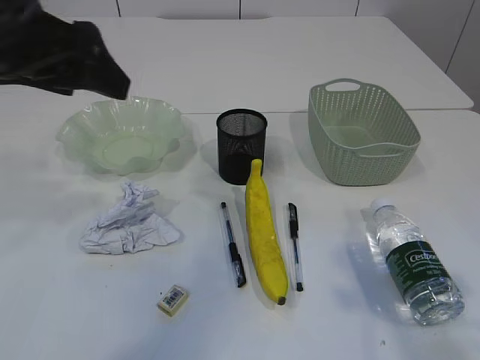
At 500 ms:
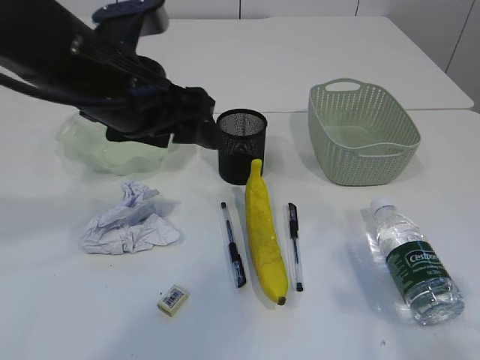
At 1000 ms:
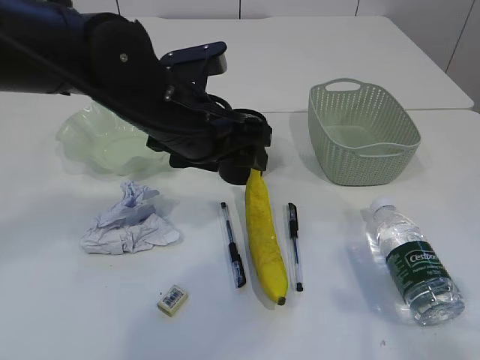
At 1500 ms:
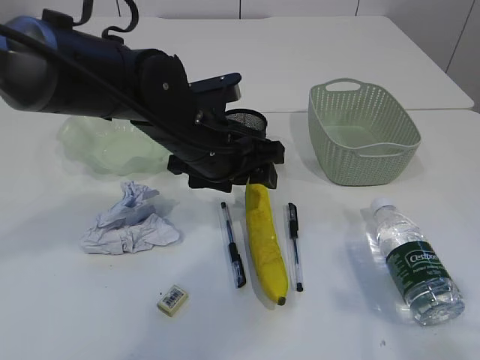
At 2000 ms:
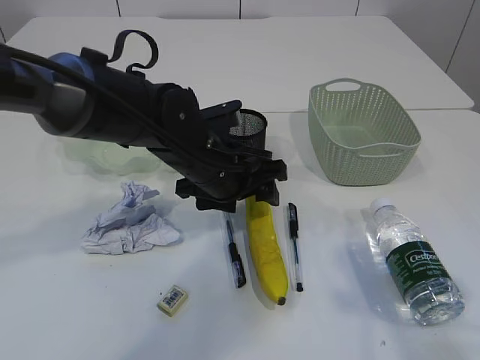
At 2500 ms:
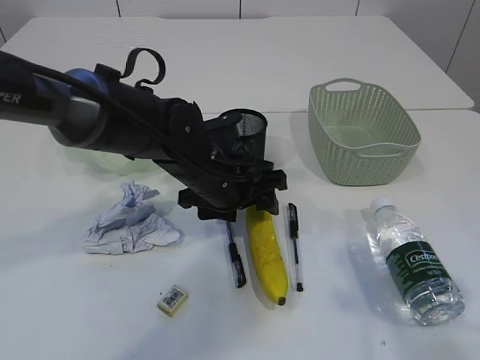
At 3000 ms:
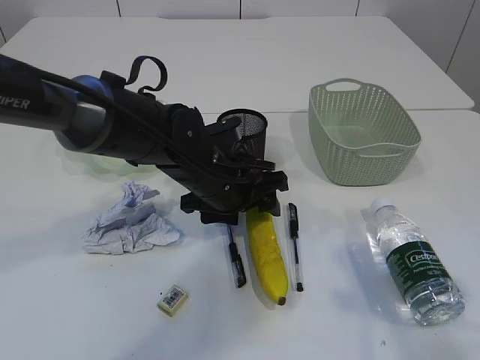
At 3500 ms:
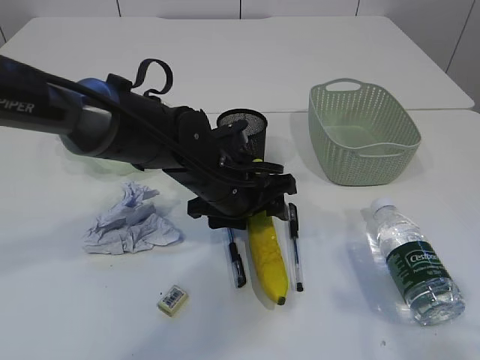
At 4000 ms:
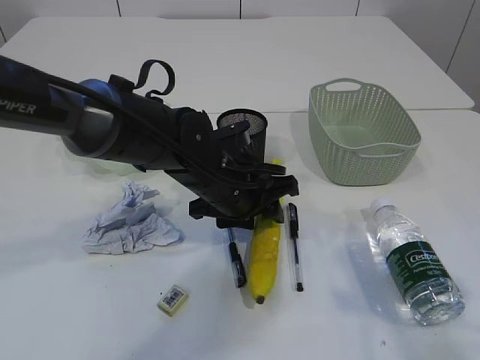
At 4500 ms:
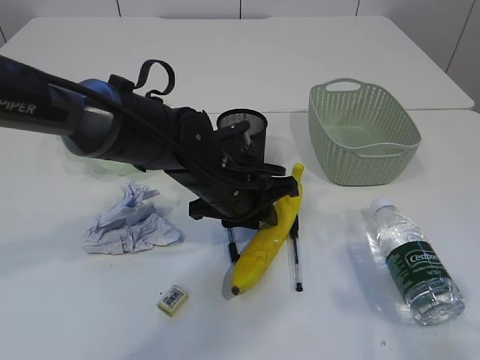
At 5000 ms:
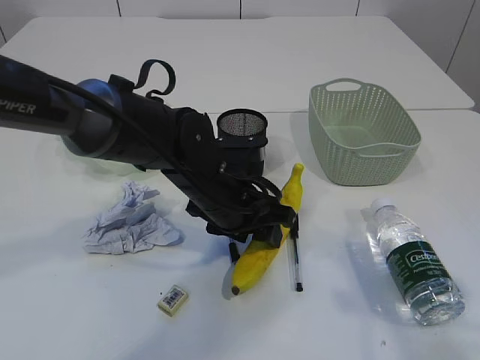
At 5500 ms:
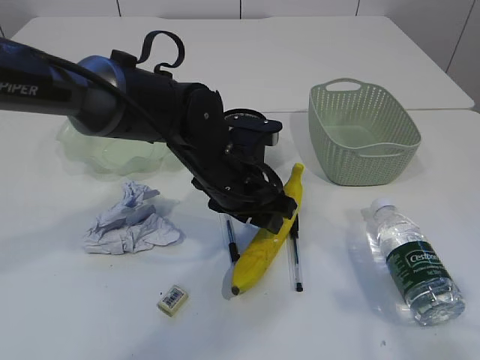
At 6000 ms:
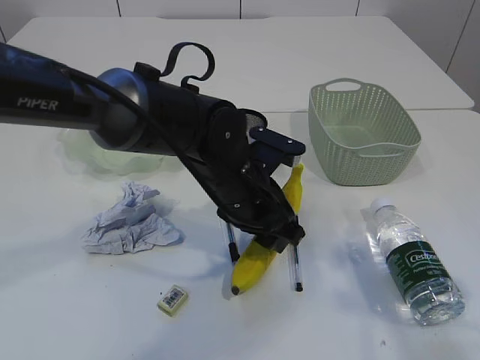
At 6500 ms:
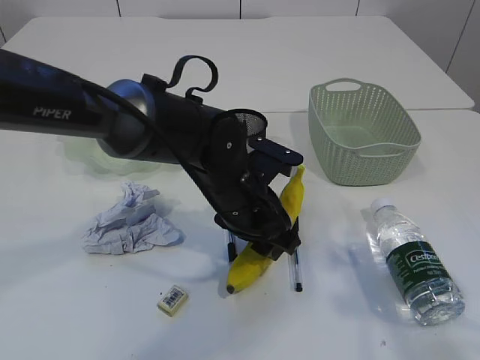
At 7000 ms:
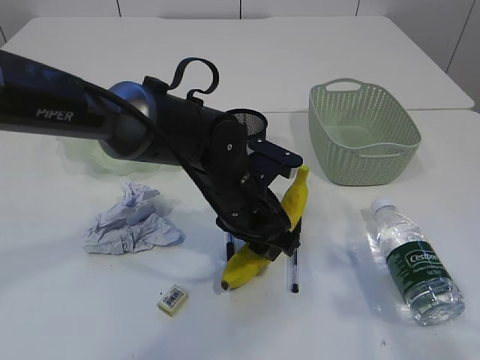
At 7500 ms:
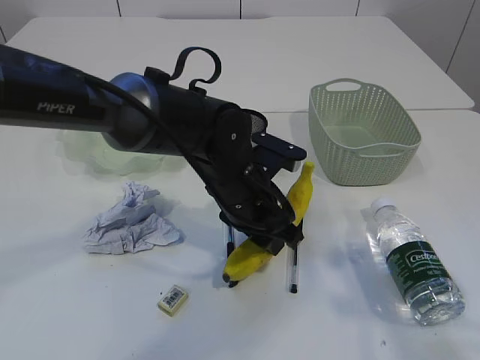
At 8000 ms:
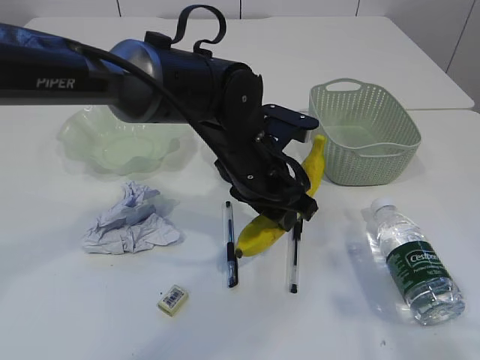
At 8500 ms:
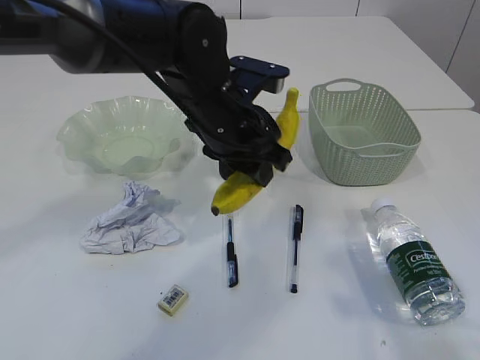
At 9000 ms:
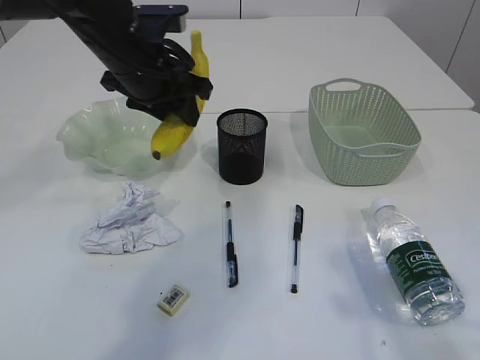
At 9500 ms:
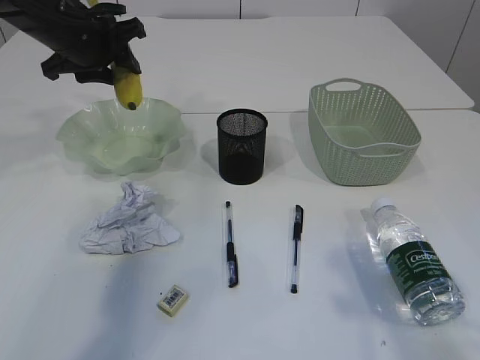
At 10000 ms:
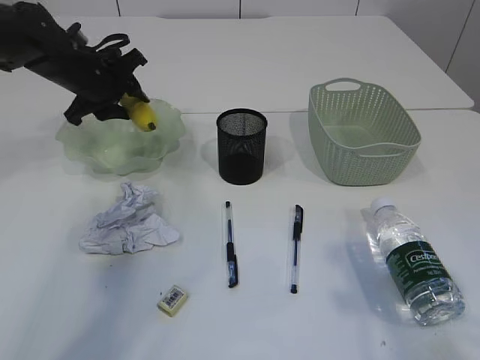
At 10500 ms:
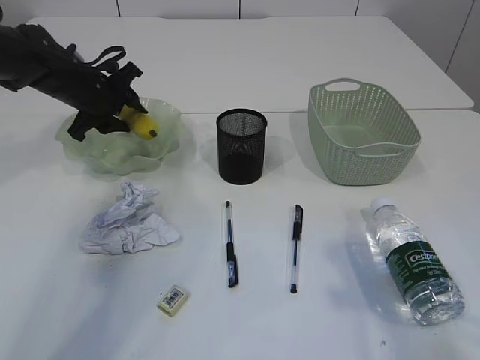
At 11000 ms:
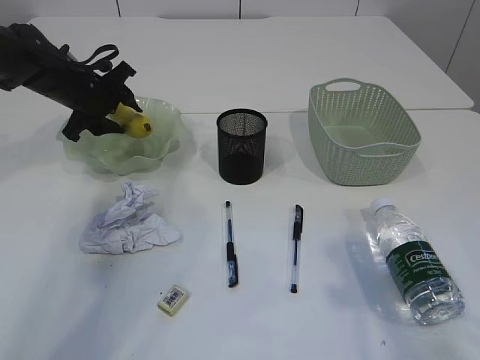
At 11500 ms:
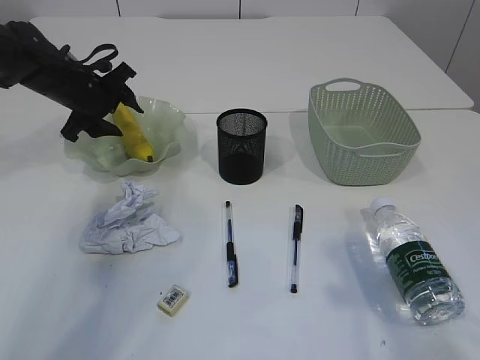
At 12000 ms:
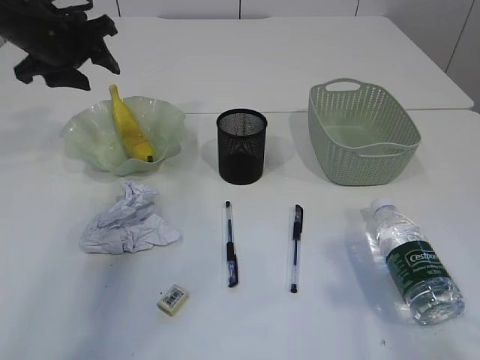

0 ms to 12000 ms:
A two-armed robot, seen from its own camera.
0 ms to 2000 ms: The left gripper shifts some 25 cm downward and to the right.
2000 ms to 4000 ms: The grippers move only a little.
6000 ms to 8000 ms: There are only small adjustments of the grippers.
8000 ms to 10000 ms: The left gripper travels to the left and forward by roughly 25 cm.
10000 ms to 12000 ms: The left gripper shifts some 5 cm upward.

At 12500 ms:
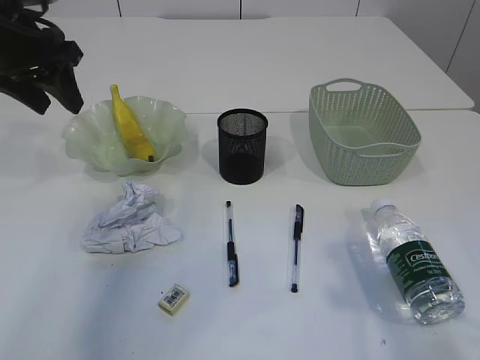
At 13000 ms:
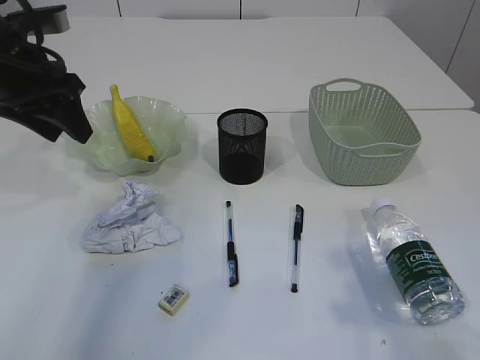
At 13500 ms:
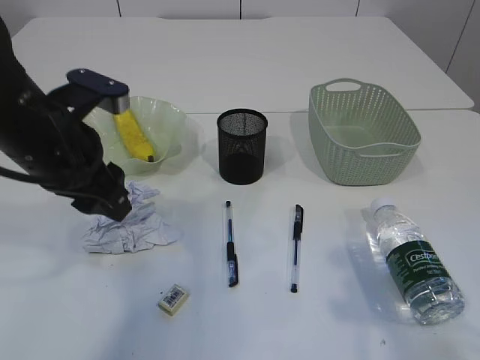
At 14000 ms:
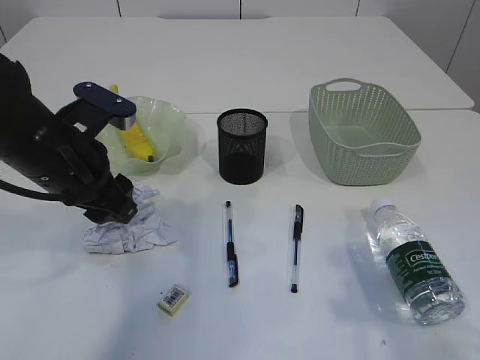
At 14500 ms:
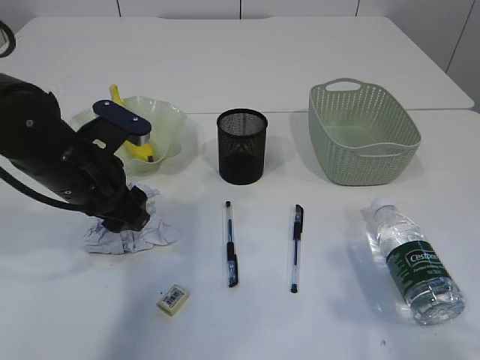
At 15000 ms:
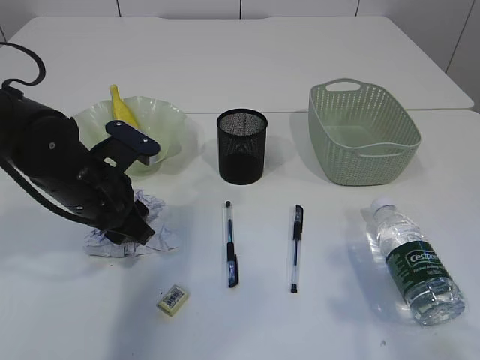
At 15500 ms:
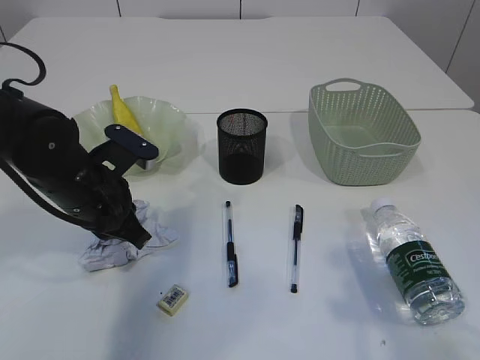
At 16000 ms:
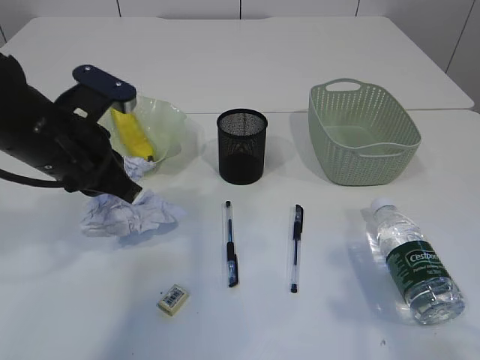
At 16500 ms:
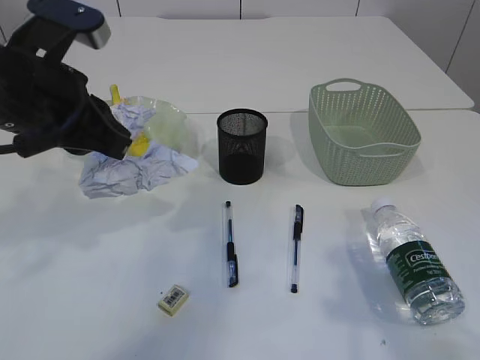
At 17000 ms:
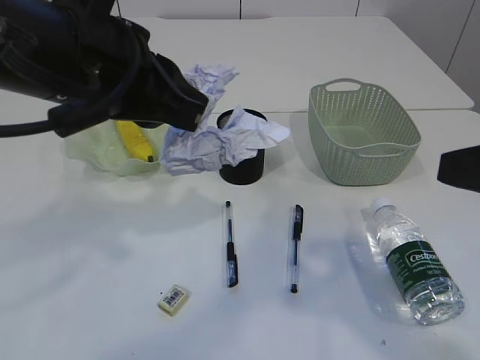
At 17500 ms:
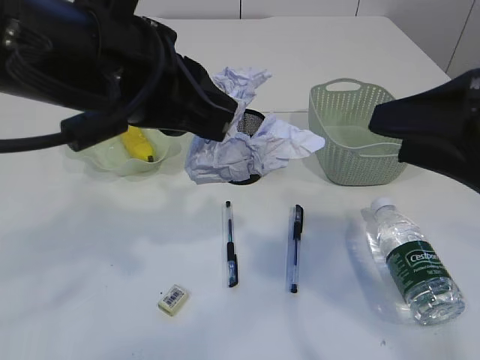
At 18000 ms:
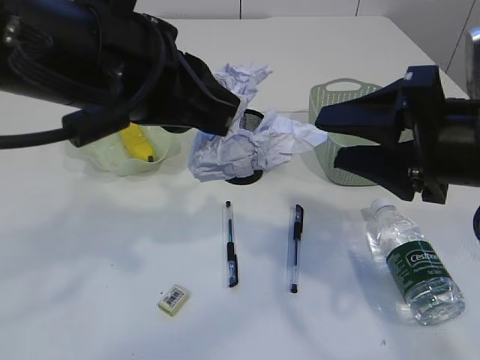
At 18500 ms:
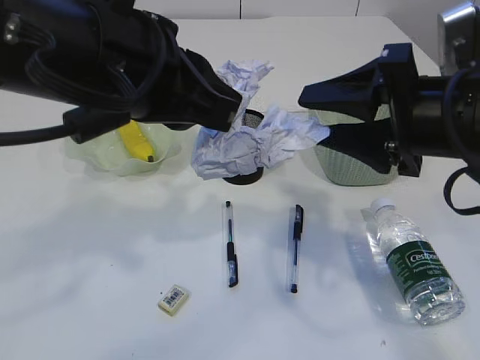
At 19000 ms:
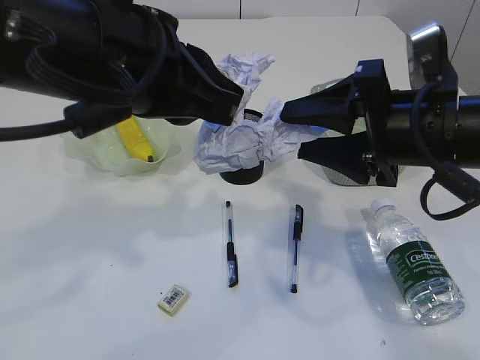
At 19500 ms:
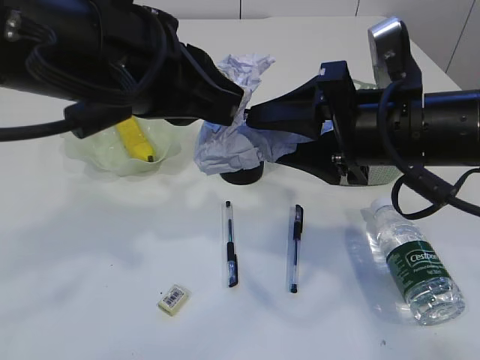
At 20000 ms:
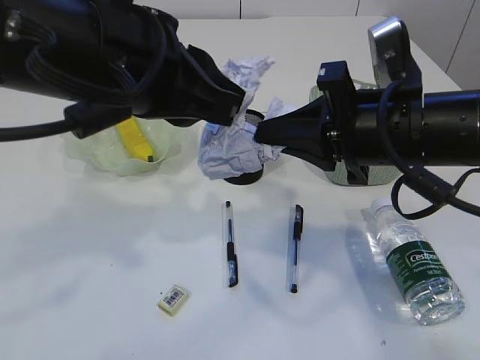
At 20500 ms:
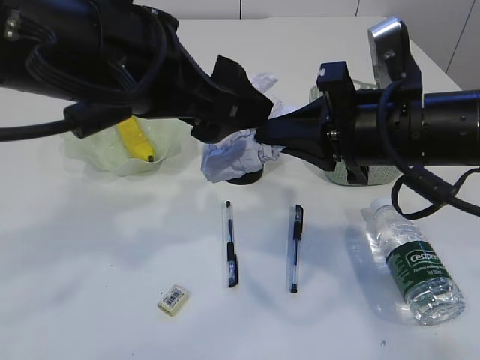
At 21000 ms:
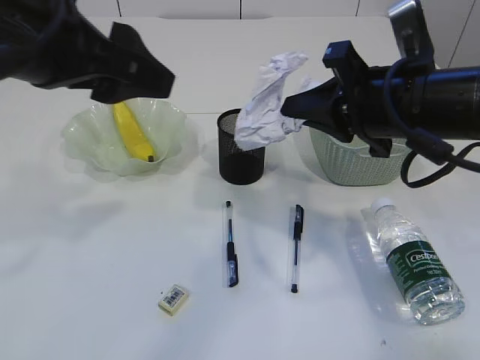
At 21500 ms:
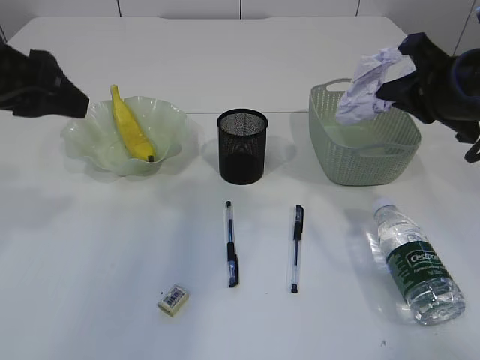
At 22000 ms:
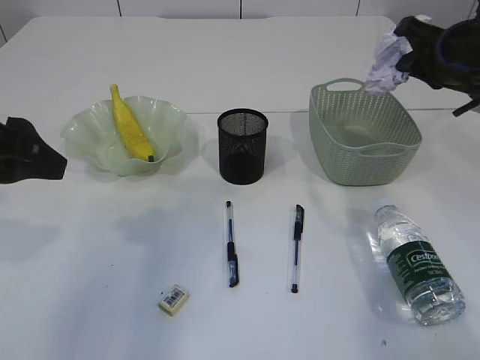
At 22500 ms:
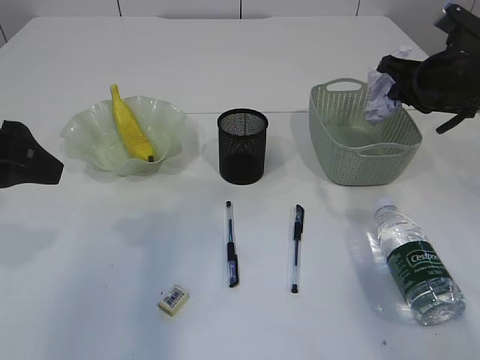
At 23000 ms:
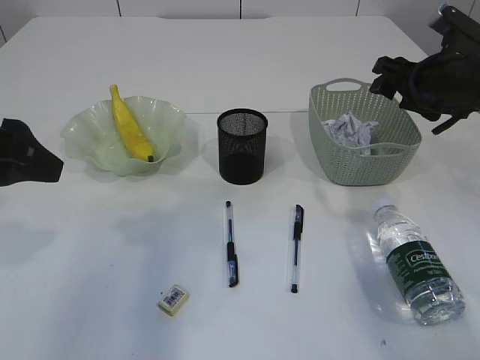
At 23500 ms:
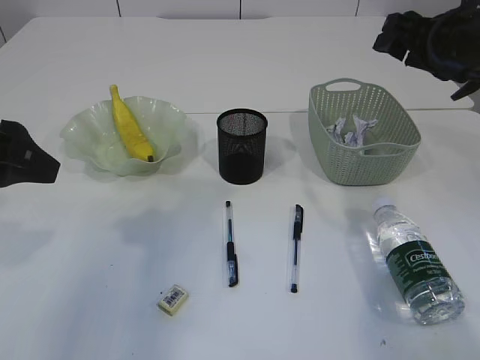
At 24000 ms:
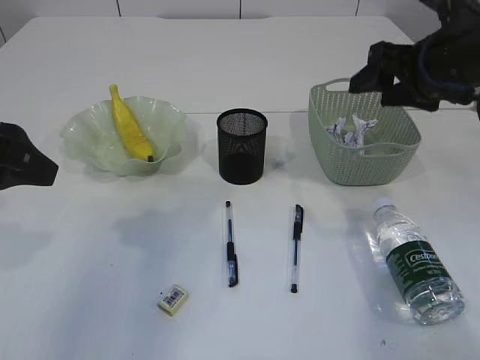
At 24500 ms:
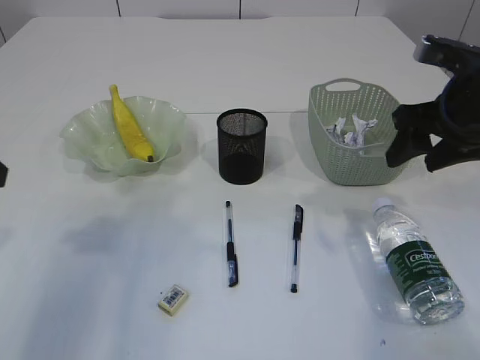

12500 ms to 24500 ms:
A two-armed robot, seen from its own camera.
Step, 12500 ms to 16000 ms: Pick up the waste paper.
Step, 16500 ms to 20500 ms: Hand over the waste paper.
Step, 21000 ms to 23000 ms: Place the waste paper in the basket.
12500 ms to 14500 ms: The left gripper is displaced downward, backward and to the right by roughly 15 cm.
14500 ms to 16500 ms: The left gripper shifts about 10 cm upward, and closes up.
16500 ms to 18500 ms: The right gripper moves forward and to the left, about 15 cm. Meanwhile the left gripper goes about 10 cm to the right.
18500 ms to 20500 ms: The right gripper closes up, while the left gripper opens.
20500 ms to 22500 ms: The right gripper is displaced forward and to the right by approximately 20 cm. The left gripper goes about 15 cm to the left.
22500 ms to 24500 ms: The right gripper moves backward, roughly 10 cm, and opens up.

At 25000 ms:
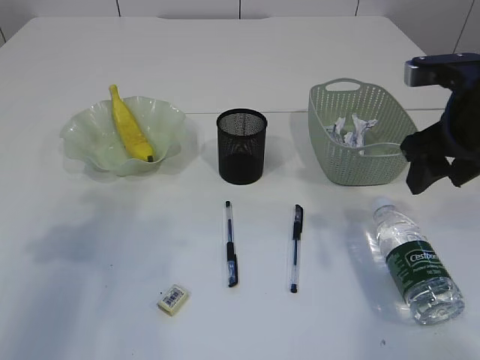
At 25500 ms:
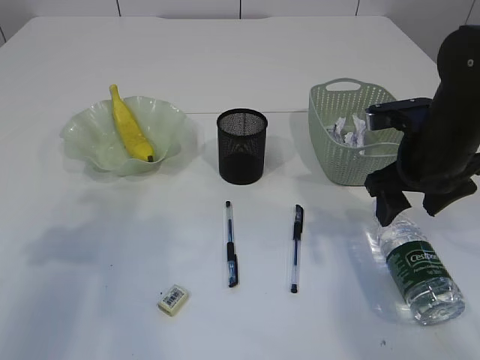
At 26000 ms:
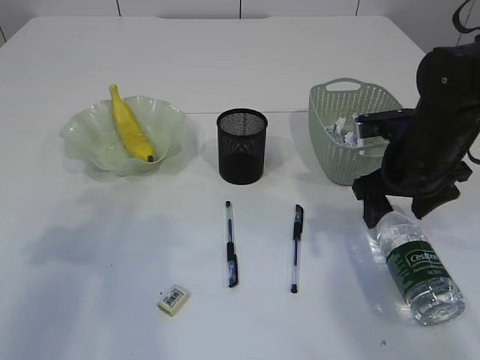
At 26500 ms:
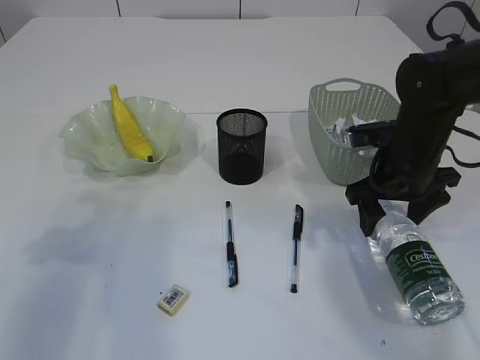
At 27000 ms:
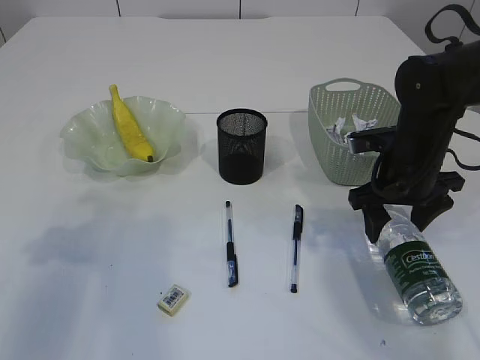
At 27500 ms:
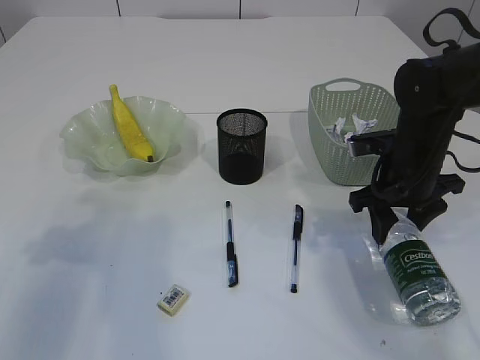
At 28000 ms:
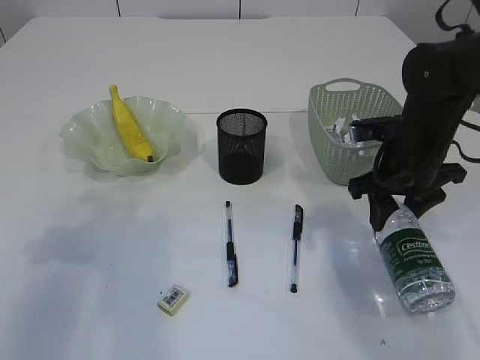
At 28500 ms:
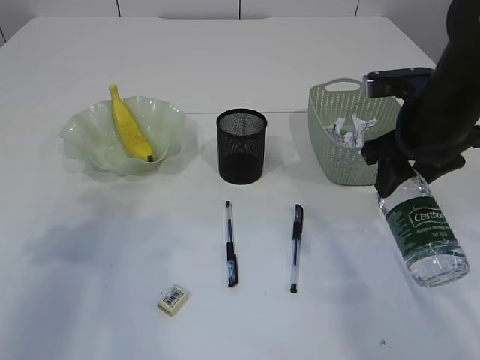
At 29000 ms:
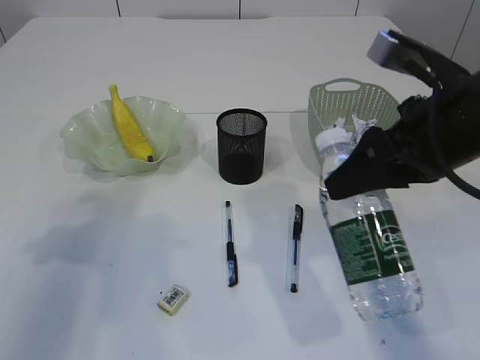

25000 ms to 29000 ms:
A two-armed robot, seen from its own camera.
Step, 25000 ms to 28500 ms: Pick up the bottle with the right arm.
25000 ms to 27000 ms: The right gripper travels downward and forward by about 10 cm.
27000 ms to 29000 ms: The right gripper is displaced upward and backward by some 15 cm, and closes its fingers.
